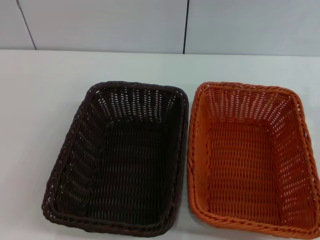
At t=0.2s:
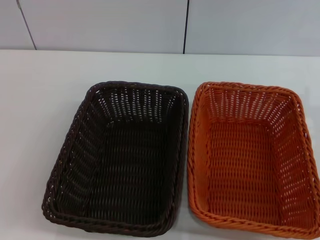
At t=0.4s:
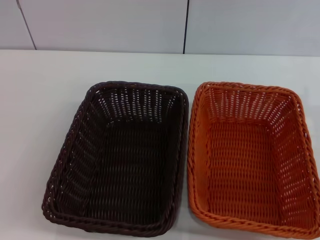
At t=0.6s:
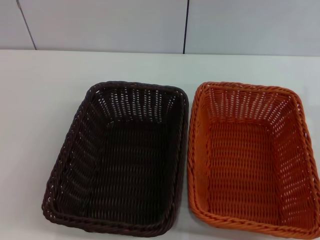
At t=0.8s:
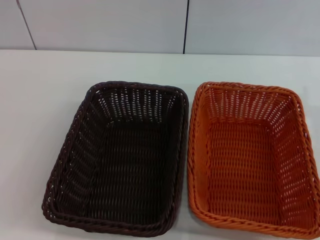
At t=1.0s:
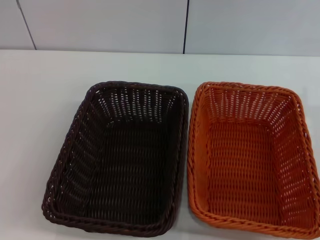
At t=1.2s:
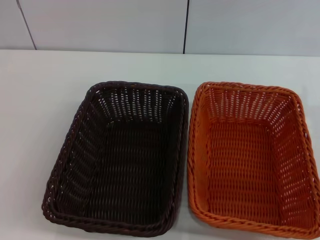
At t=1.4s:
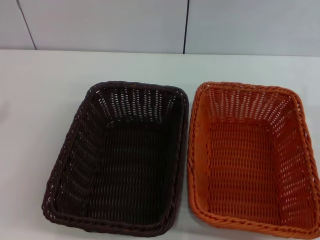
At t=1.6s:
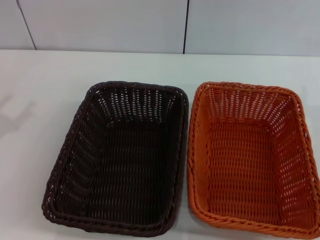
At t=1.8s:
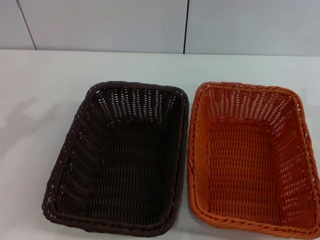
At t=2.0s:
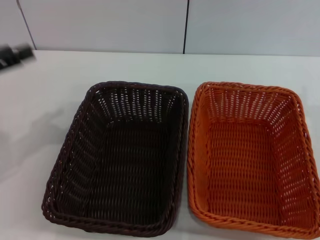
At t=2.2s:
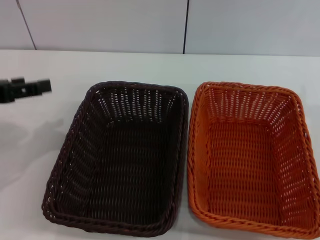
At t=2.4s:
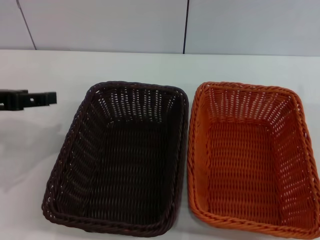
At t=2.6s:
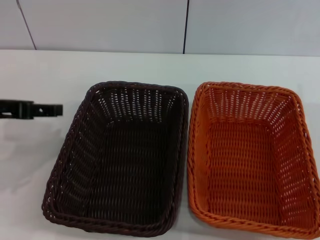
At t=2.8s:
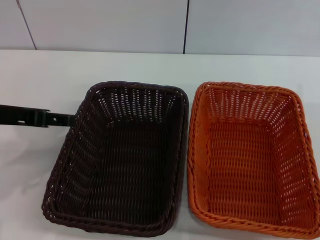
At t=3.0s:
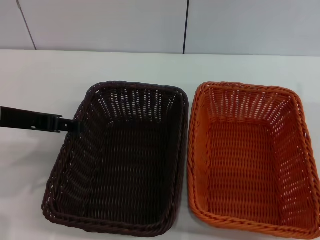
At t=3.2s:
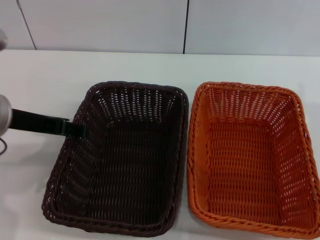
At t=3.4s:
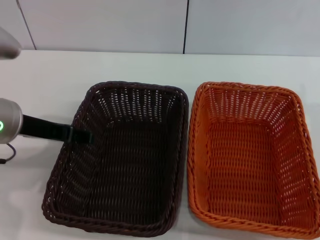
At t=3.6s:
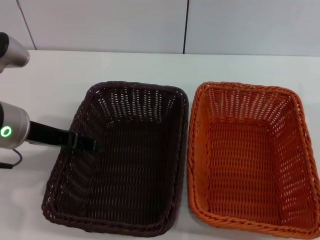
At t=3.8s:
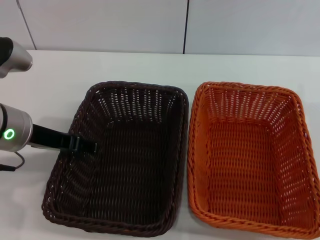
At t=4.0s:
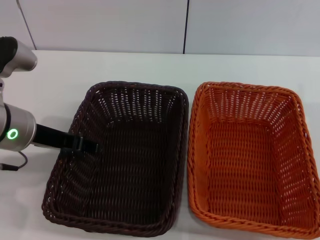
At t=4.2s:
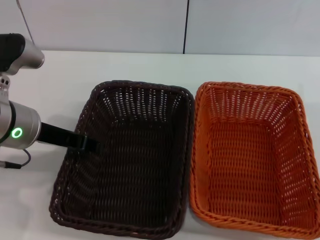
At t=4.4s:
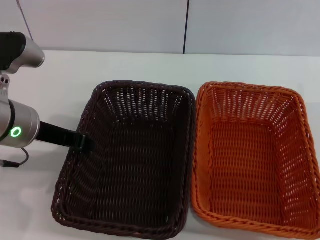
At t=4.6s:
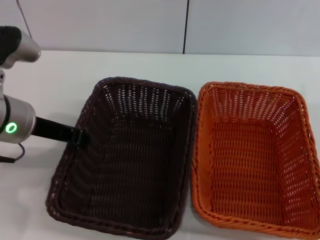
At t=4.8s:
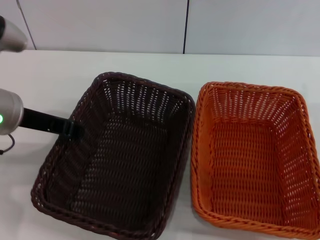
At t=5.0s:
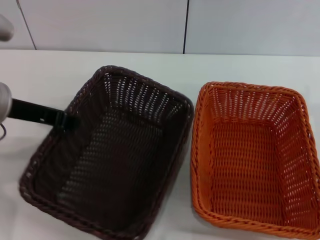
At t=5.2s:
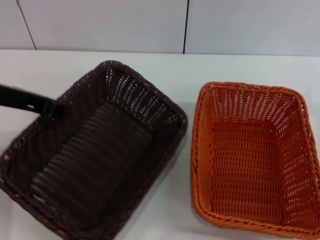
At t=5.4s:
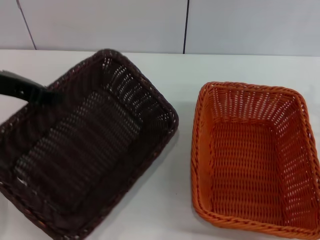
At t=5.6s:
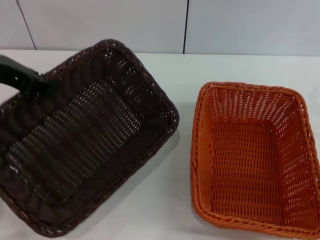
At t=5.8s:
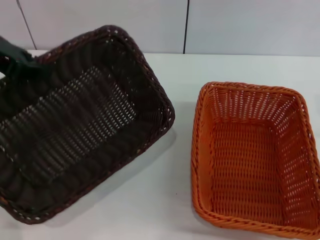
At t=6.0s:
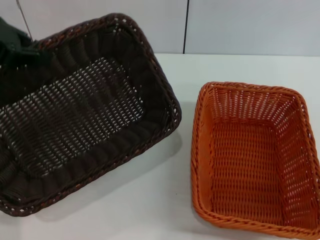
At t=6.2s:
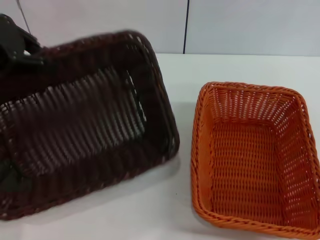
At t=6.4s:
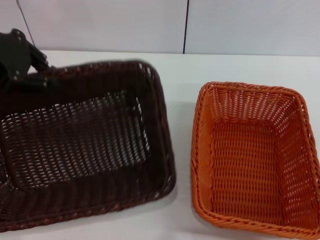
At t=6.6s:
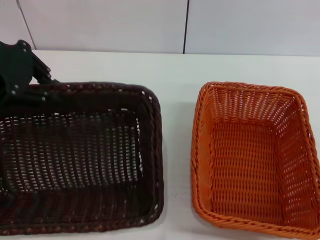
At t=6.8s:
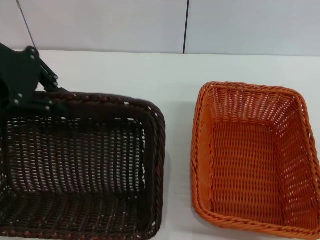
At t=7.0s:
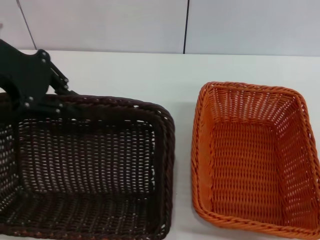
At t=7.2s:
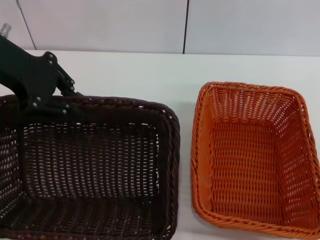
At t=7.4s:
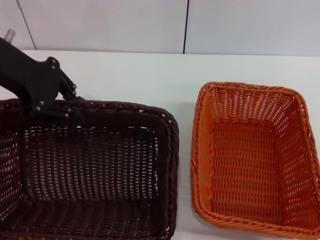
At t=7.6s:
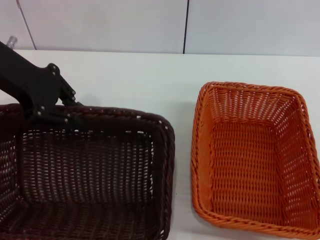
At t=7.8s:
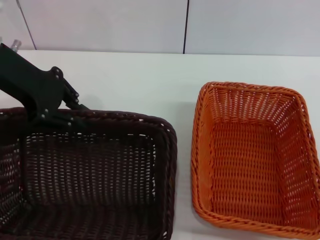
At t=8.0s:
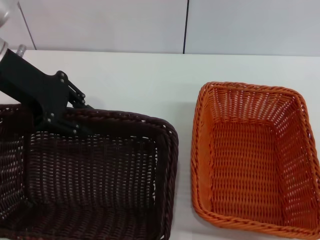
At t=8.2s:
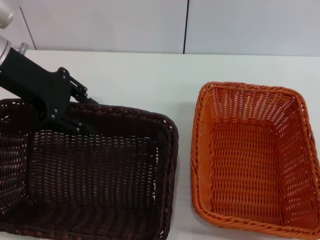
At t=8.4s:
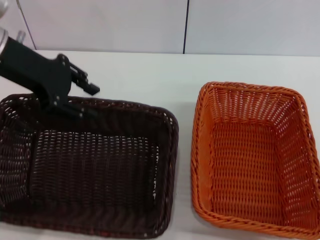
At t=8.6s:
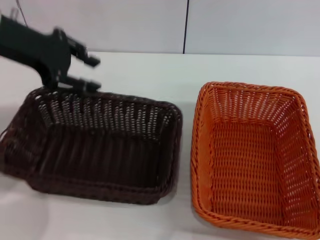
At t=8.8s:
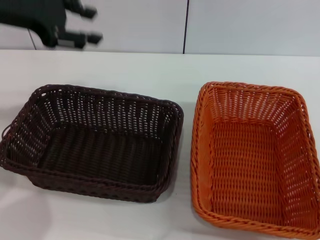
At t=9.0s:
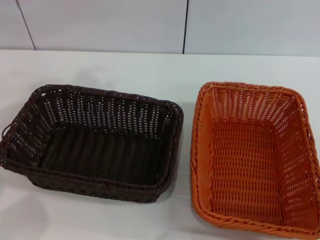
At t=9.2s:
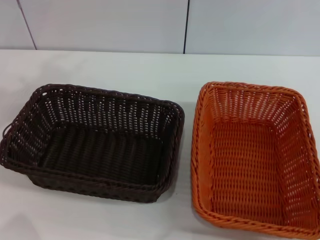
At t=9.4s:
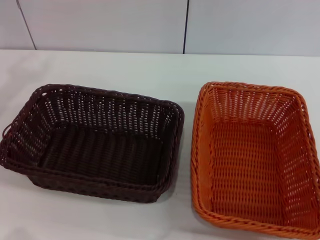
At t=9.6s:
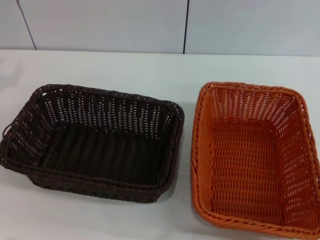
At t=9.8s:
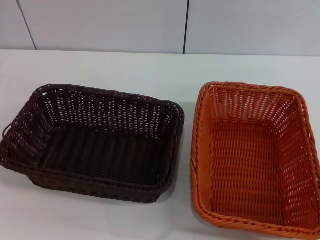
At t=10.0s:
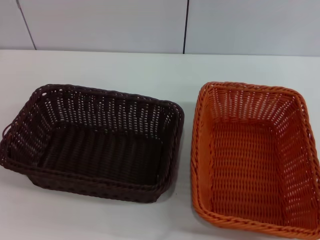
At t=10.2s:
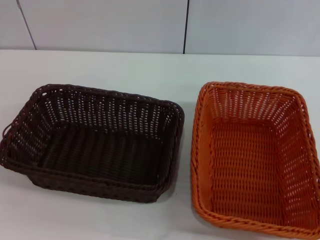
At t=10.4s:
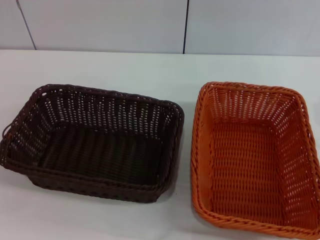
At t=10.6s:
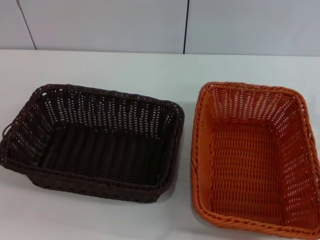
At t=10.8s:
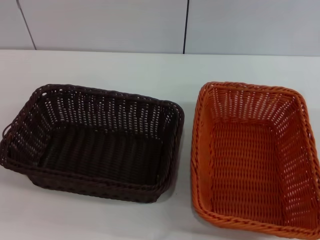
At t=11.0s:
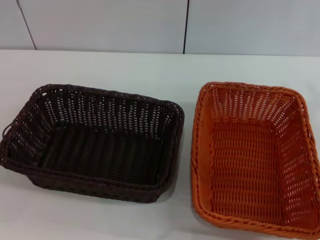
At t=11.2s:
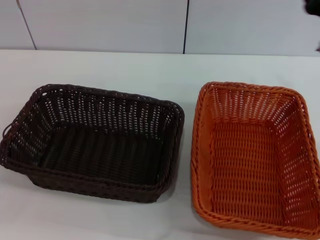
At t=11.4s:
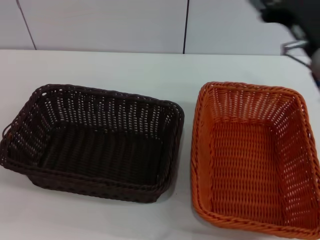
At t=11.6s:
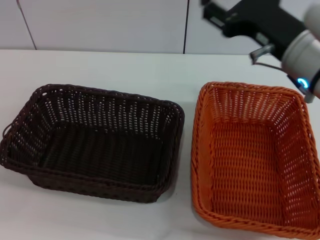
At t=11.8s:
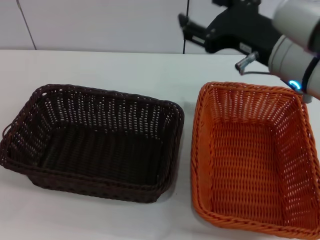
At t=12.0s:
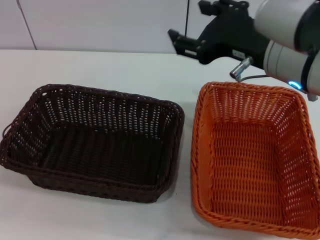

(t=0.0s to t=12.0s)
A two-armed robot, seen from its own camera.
Step, t=0.0s - t=5.6s: Pick up the dark basket with the left gripper.
Step, t=5.8s - t=8.6s: Place the dark basket in the center of view with the left gripper.
t=1.6s - t=3.0s: The left gripper travels to the right by approximately 15 cm.
t=3.0s - t=4.4s: The left gripper closes its fingers.
t=4.4s - t=6.0s: The left gripper travels upward and to the left by some 15 cm, and closes up.
t=6.0s - t=7.6s: The left gripper changes place by about 5 cm.
t=7.6s - t=9.0s: The left gripper travels to the left by approximately 5 cm, and opens its fingers.
t=9.0s - t=10.4s: The left gripper moves downward, to the left and backward, roughly 20 cm.
t=10.4s - t=12.0s: The right gripper travels to the left and upward by roughly 20 cm.

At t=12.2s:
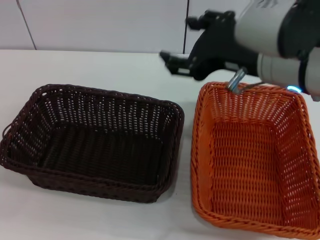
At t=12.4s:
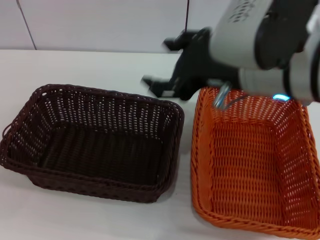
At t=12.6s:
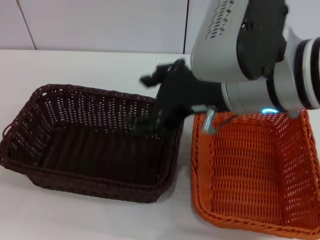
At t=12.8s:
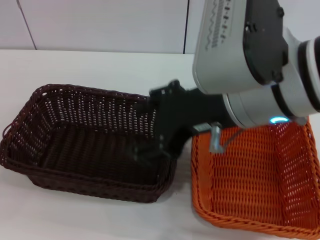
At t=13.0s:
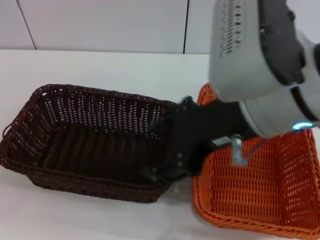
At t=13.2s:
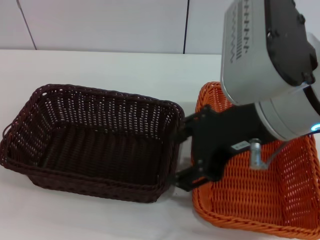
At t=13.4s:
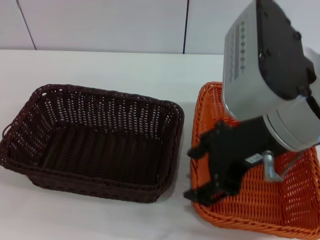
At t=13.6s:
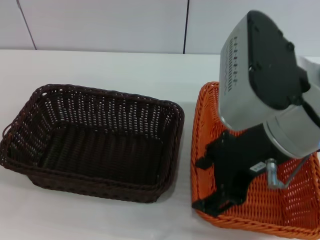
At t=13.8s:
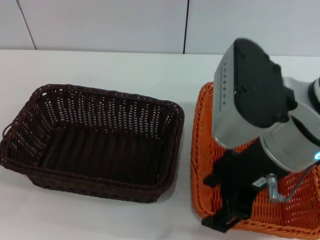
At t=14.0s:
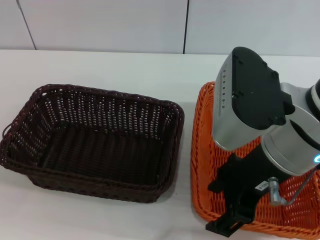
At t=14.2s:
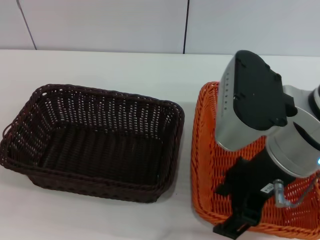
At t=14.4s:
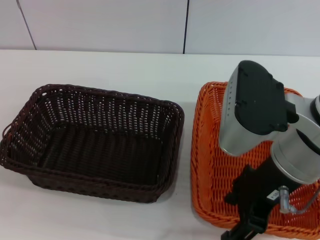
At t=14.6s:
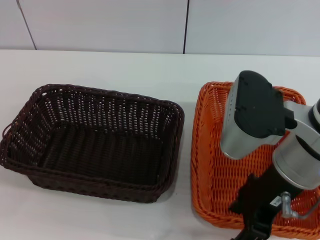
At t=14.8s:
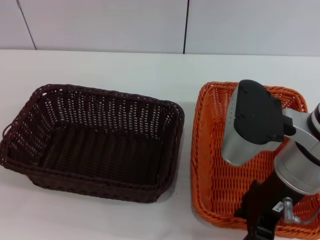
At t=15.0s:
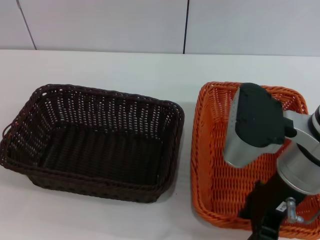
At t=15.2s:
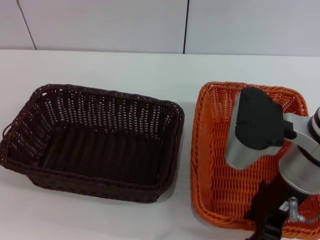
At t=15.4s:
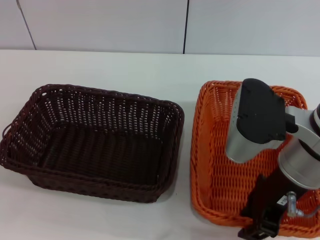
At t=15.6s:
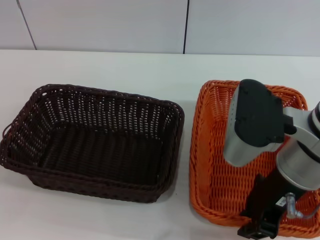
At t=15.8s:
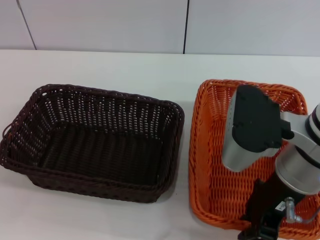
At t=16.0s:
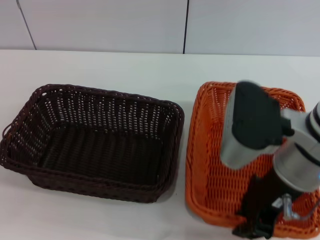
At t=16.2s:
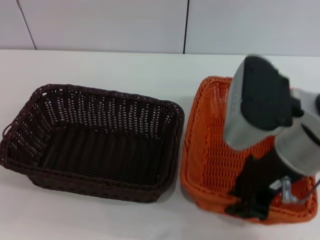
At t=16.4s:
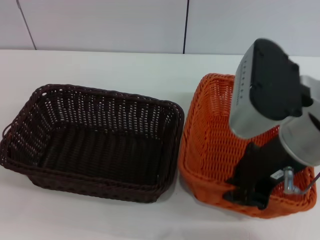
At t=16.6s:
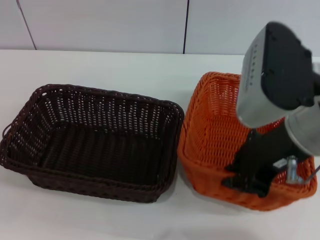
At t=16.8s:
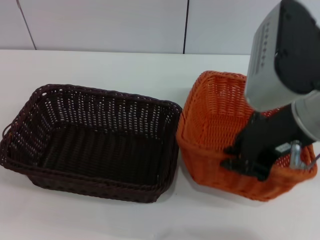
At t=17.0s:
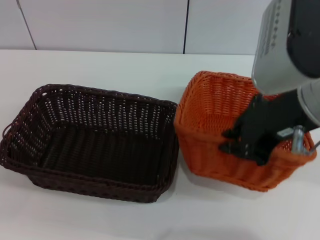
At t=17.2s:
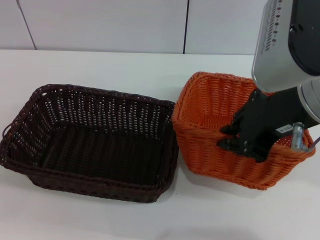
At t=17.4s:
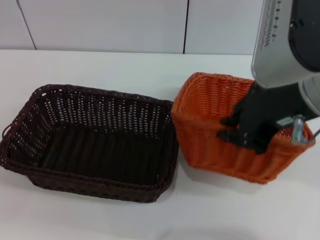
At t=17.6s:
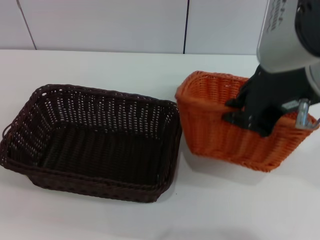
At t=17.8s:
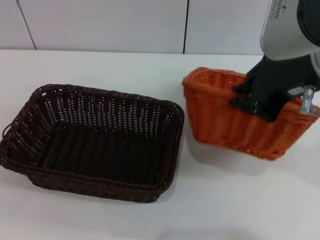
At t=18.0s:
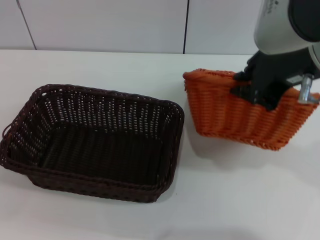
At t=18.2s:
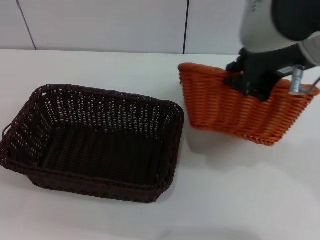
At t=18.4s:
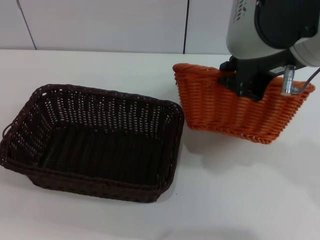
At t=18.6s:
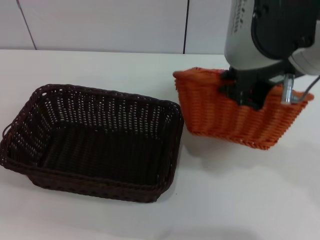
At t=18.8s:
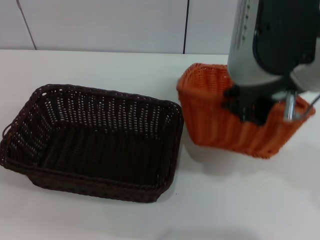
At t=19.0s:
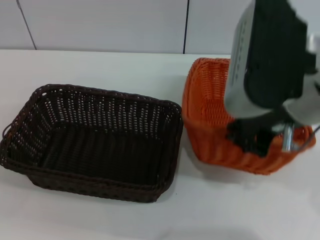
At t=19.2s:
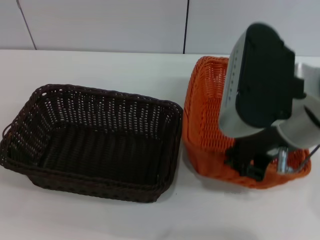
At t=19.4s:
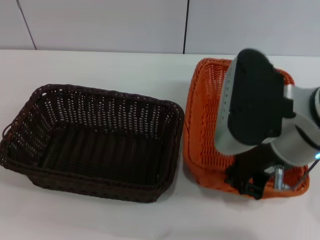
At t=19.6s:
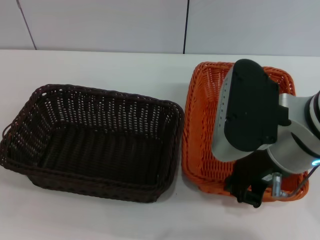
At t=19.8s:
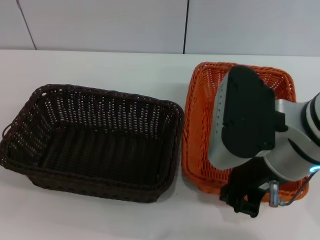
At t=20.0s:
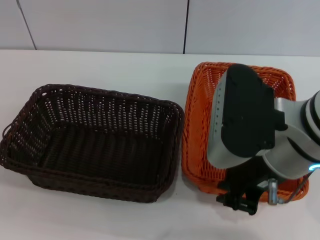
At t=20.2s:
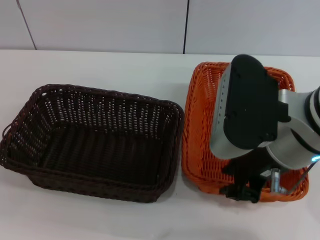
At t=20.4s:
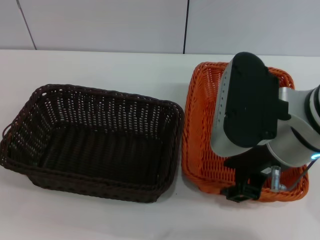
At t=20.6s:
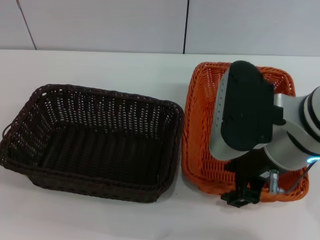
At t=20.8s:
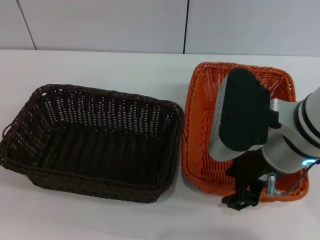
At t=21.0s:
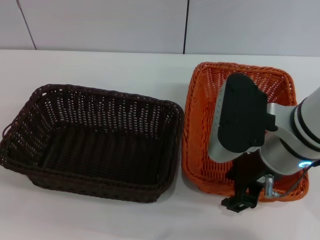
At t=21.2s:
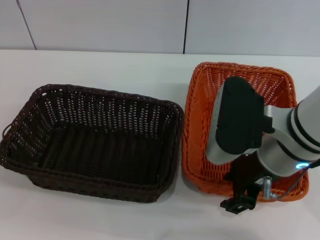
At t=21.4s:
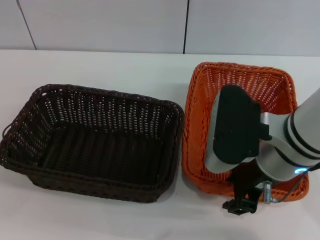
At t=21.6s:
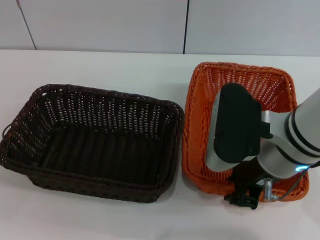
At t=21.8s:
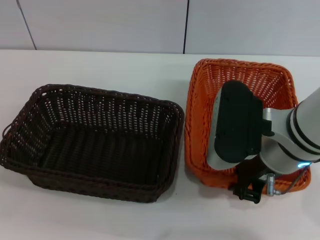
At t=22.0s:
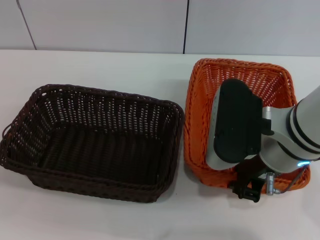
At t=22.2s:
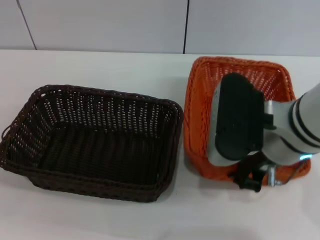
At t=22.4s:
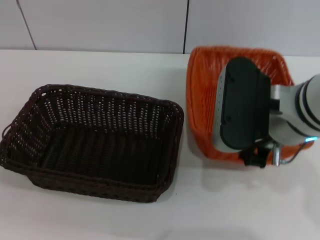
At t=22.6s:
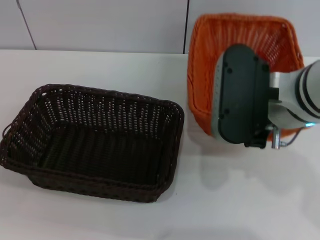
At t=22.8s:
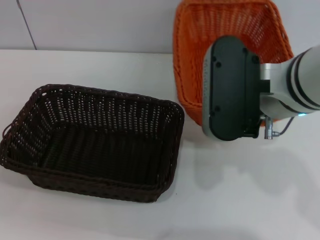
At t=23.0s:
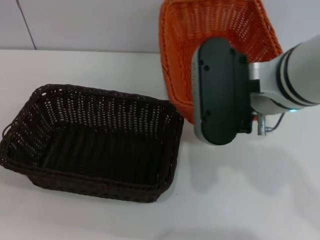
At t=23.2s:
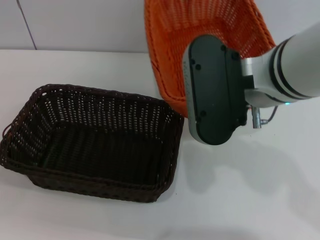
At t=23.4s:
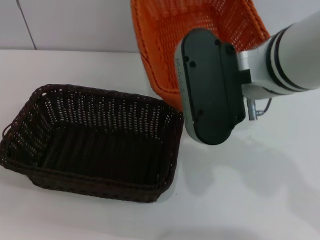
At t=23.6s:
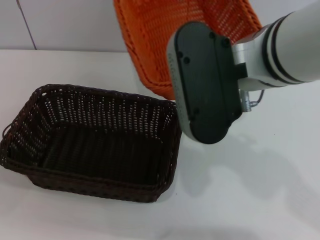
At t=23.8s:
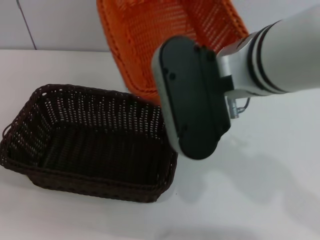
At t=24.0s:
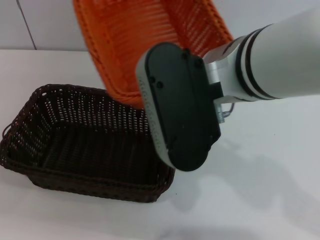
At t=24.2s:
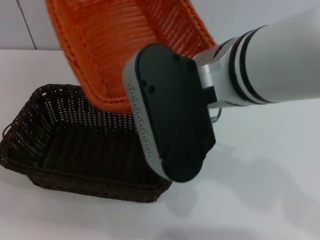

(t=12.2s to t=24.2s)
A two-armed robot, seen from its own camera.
Step, t=12.2s - t=22.2s: Pick up the light basket with the right gripper.
t=13.8s - t=15.2s: The right gripper travels downward by approximately 5 cm.
t=15.2s - t=16.6s: The right gripper heads upward, covering about 5 cm, and closes its fingers.
t=16.6s - t=18.2s: The right gripper goes approximately 5 cm upward.
t=18.2s - t=19.8s: The right gripper travels downward by roughly 10 cm.
t=19.8s - t=21.2s: The right gripper opens its fingers.
t=21.2s - t=22.6s: The right gripper closes its fingers.
t=22.6s - t=24.2s: The right gripper shifts approximately 10 cm to the left and upward.
